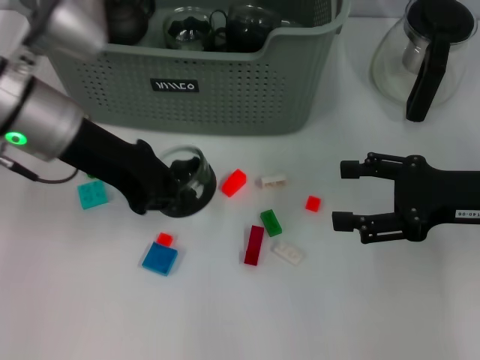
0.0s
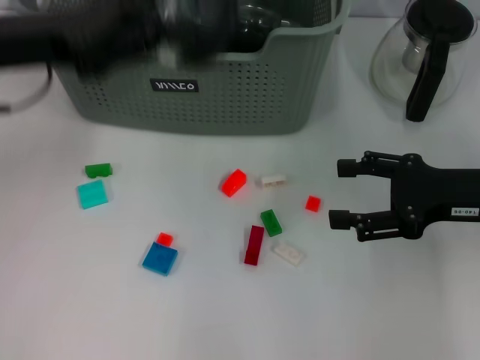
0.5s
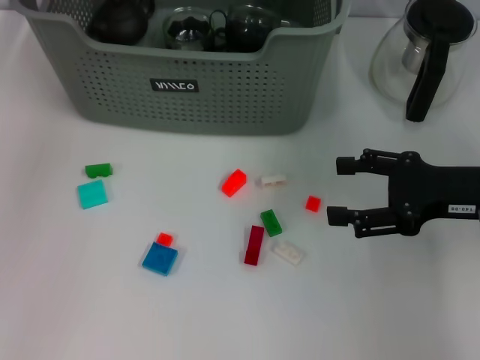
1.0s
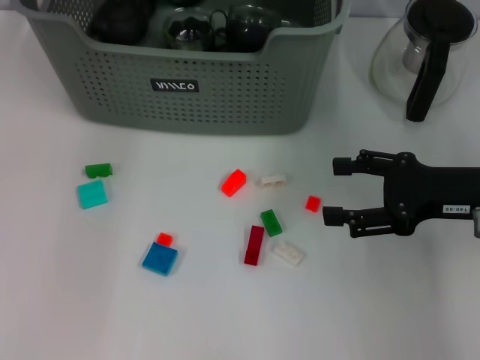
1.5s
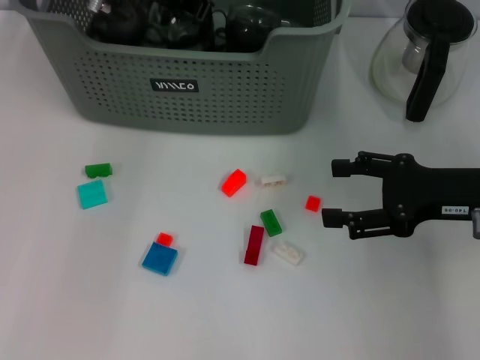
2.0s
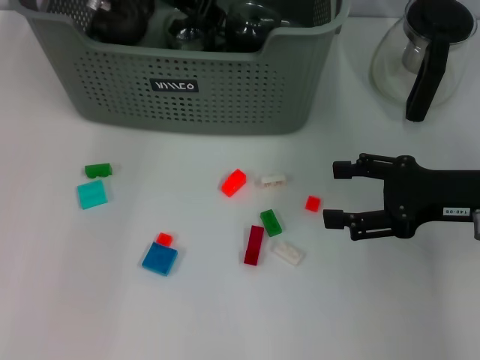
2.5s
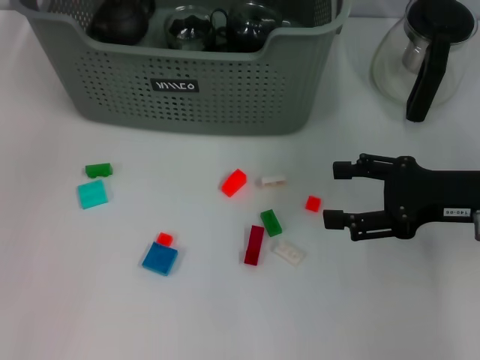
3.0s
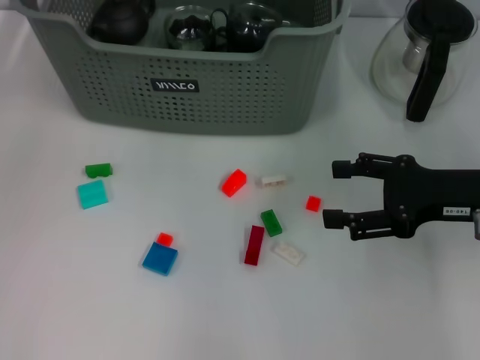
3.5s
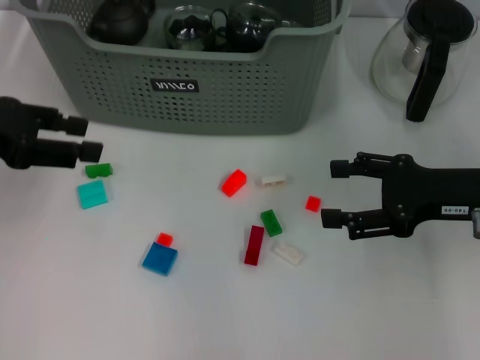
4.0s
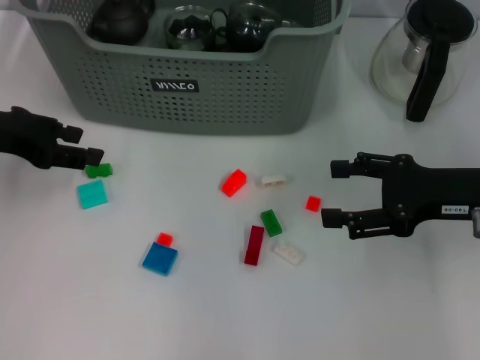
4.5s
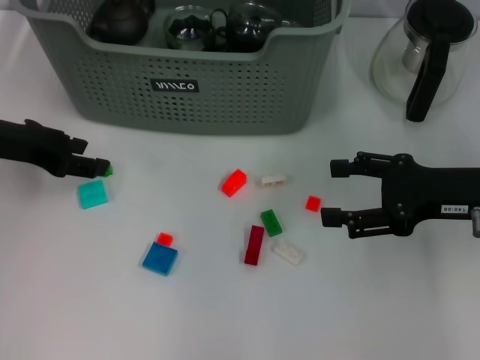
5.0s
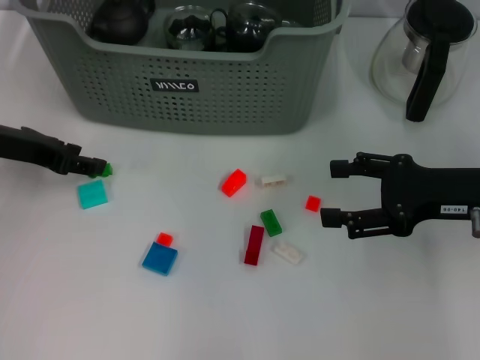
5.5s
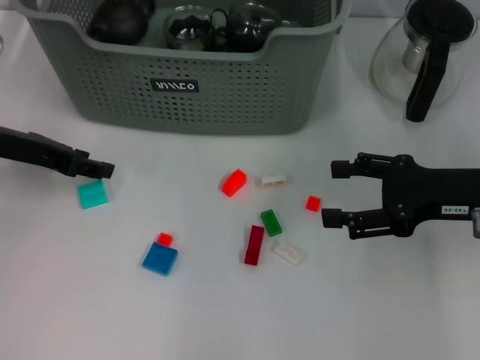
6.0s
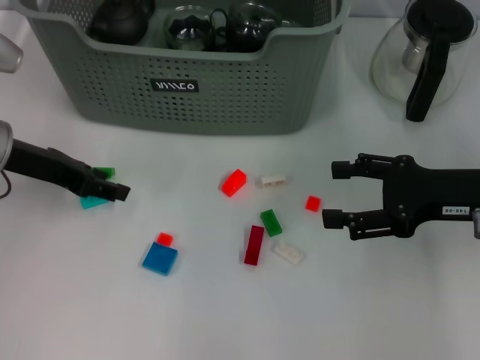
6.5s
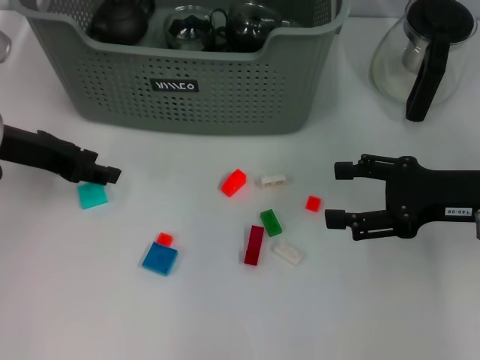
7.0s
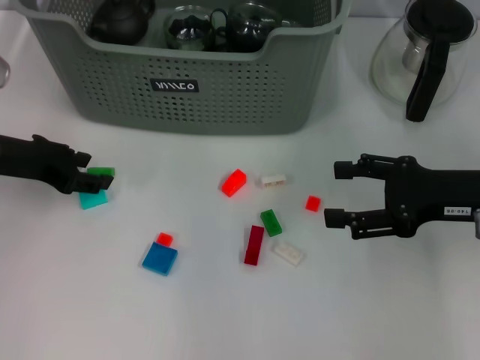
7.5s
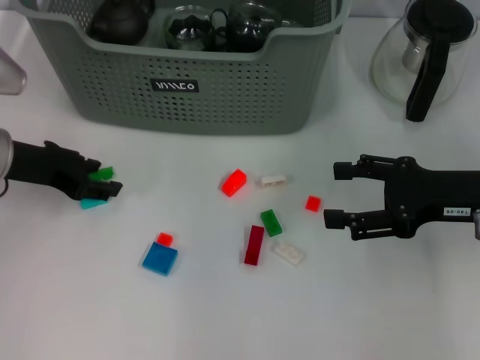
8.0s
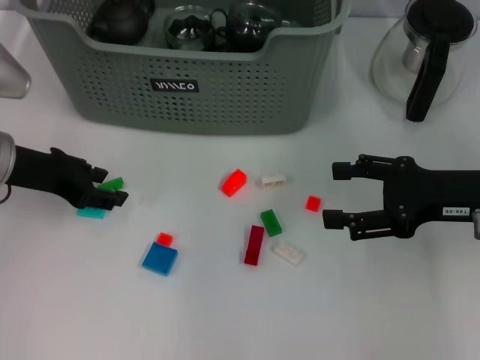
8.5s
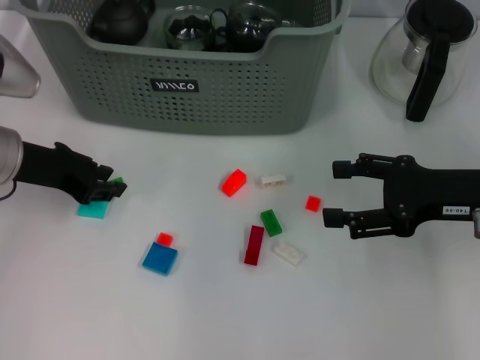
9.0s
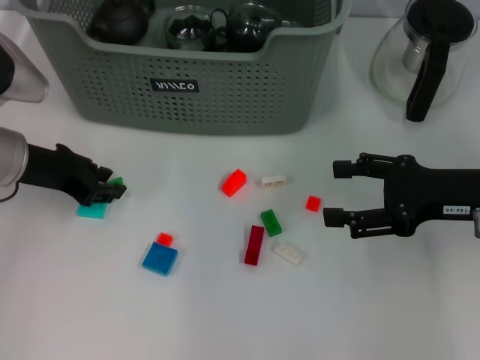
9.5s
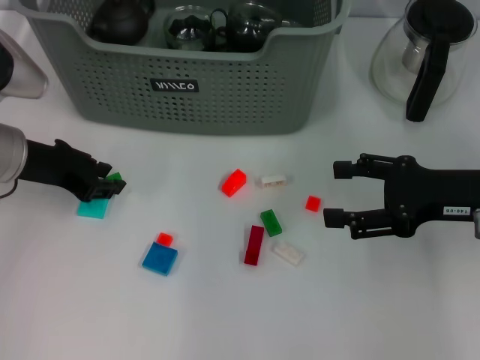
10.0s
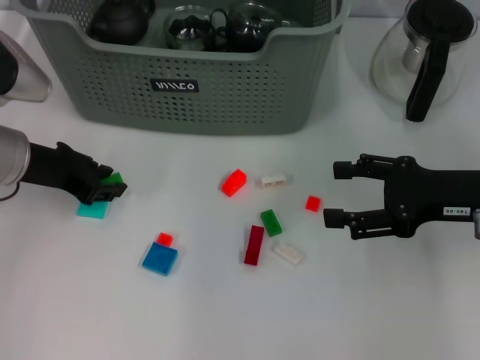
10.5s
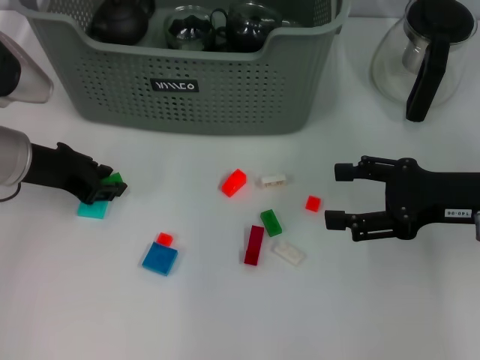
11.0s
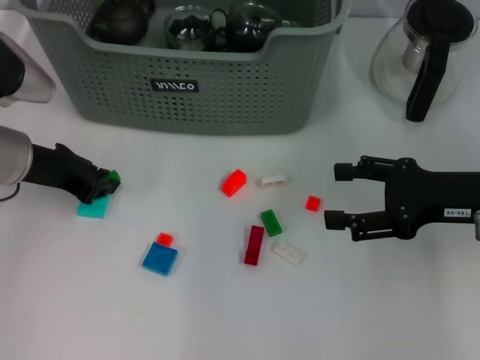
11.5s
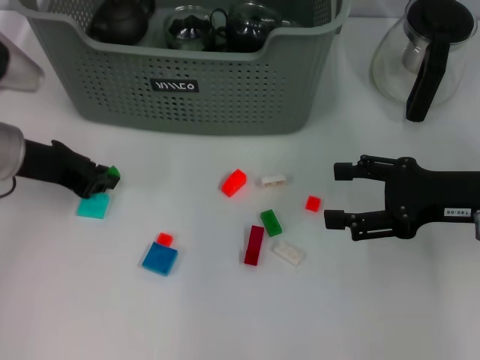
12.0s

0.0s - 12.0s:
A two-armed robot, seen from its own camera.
Task of the whole recording: pick up the teacup on the table and place it into the storage bin, pick up the block on the table and place it into the storage bin.
Step, 0.0s - 3.0s: Place the cup in the storage box with left gripper.
Step, 3.5s - 11.5s: Grasp the green block with left gripper.
0.0s - 2.0s: The left gripper is displaced forward and to the right by roughly 15 cm.
2.0s - 4.0s: The left gripper heads backward and to the left, covering about 25 cm, and opens up.
4.0s - 6.0s: The left gripper is displaced downward by some 5 cm.
6.0s - 10.0s: The grippers stay close to where they were, moving slightly.
10.0s - 12.0s: Neither gripper changes place.

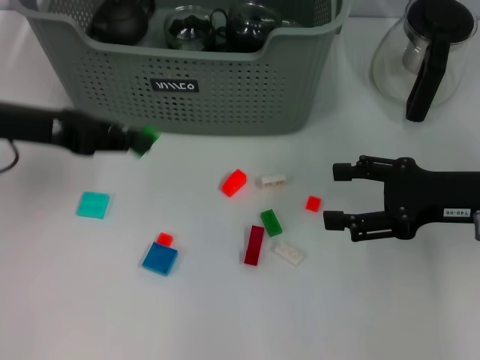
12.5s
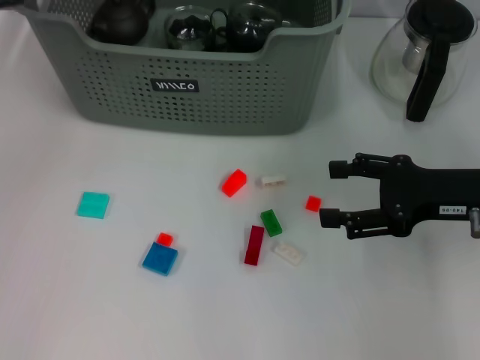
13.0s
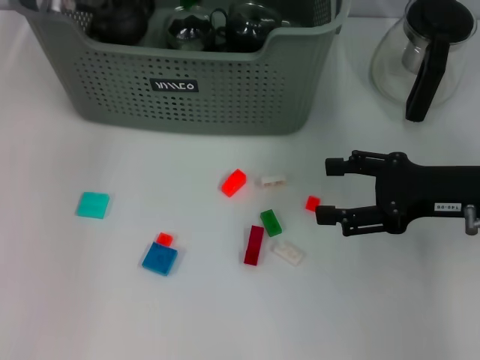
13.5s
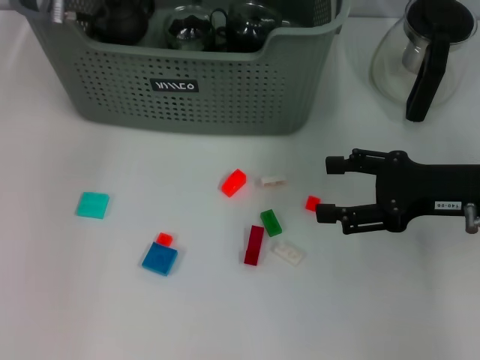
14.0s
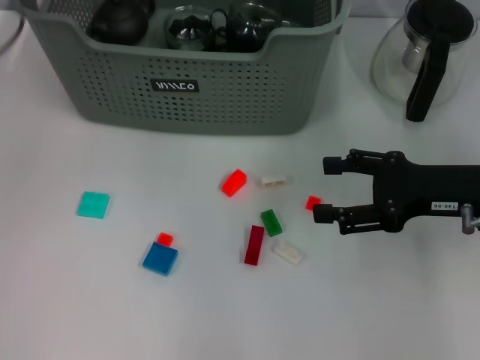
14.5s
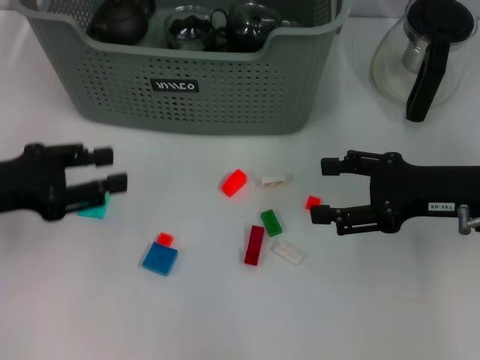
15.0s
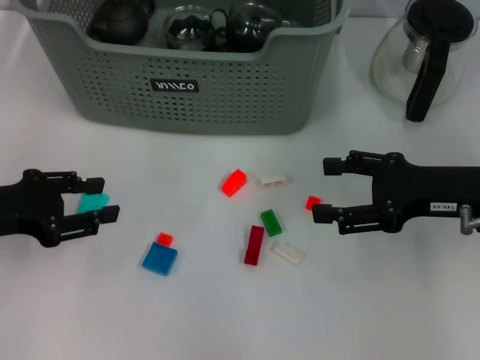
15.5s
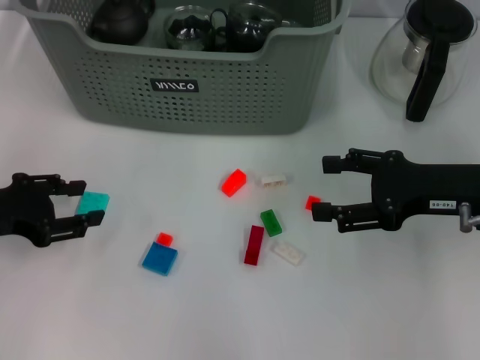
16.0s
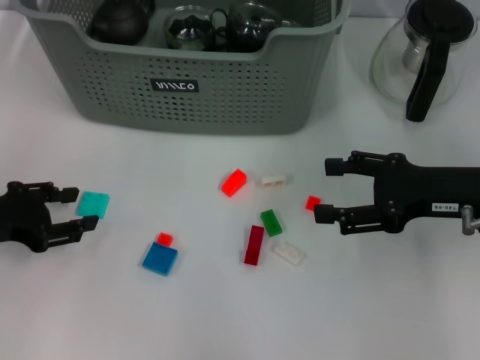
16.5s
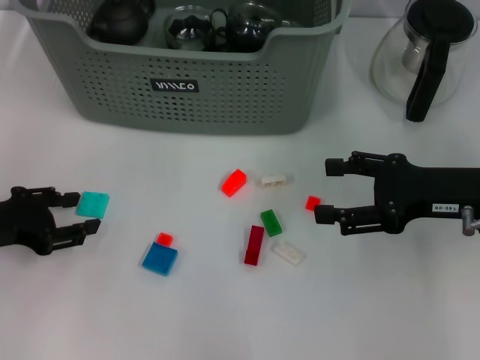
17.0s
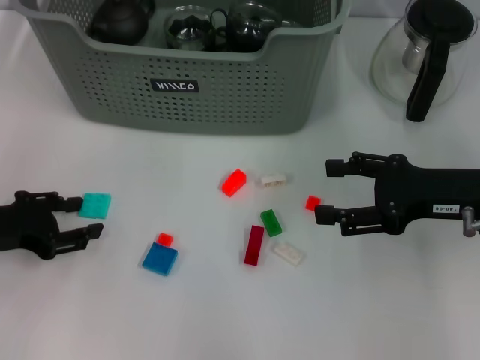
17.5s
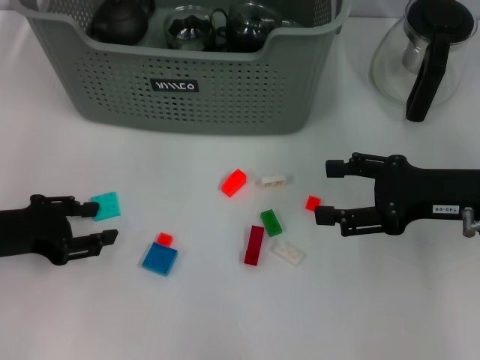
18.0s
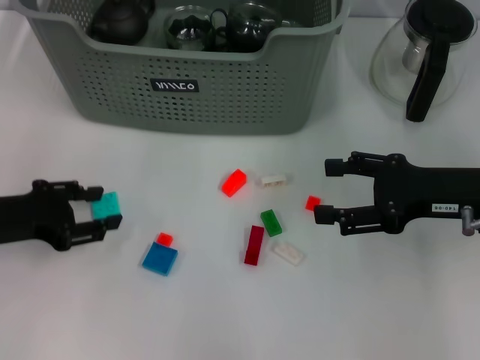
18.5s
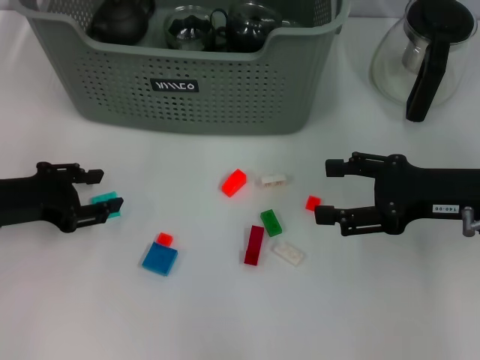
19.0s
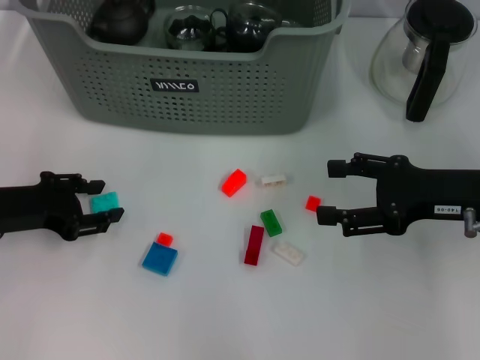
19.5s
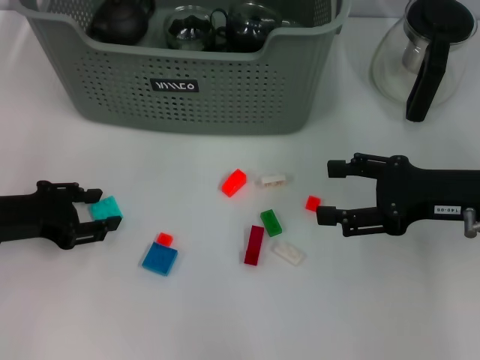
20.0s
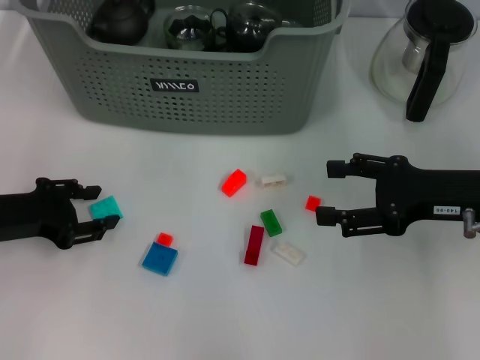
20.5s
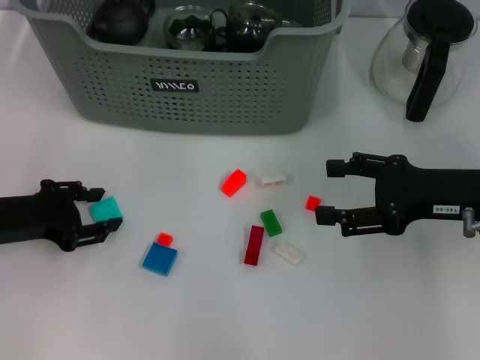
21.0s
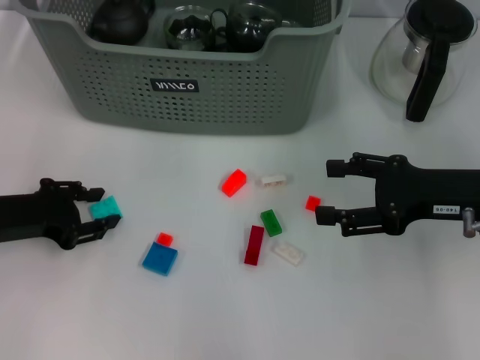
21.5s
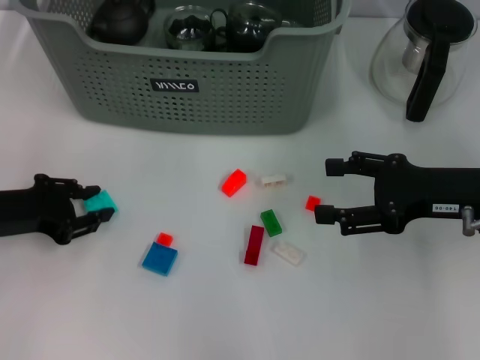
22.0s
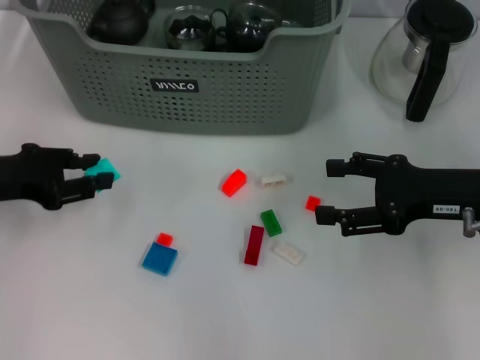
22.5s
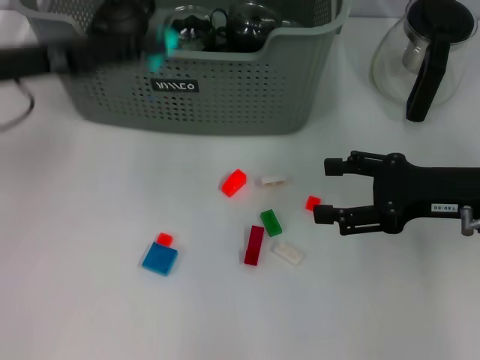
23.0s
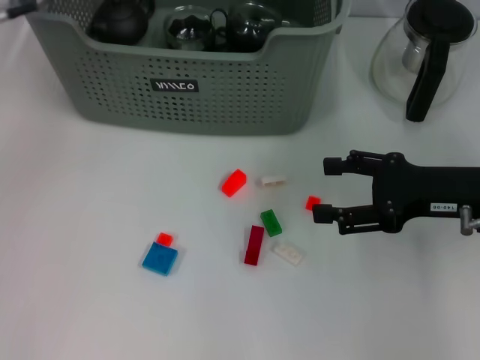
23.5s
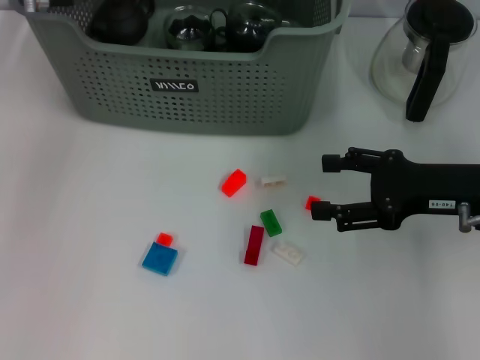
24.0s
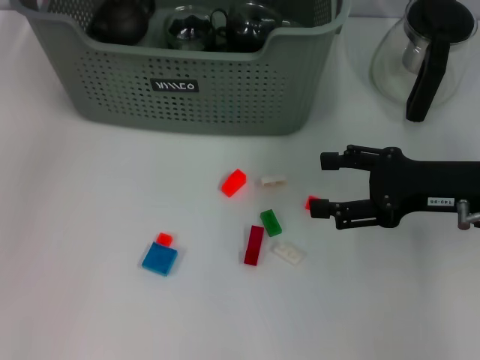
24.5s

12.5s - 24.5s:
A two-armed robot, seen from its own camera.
Task of the whole recording: pick up the teacup on the table and place it into the storage bin, pick up the block on the table and place it into the storage bin.
Step, 12.5s - 14.0s: Place the green block in the storage box with left gripper.
Step, 14.5s - 21.5s: Grasp the light blue block with left gripper.
12.5s - 14.5s: The left gripper moves about 15 cm forward and comes back, and opens its fingers.
14.5s - 16.5s: The left gripper is displaced downward and backward by roughly 15 cm.
16.5s - 22.5s: There are only small adjustments of the grippers.
22.5s - 24.5s: The left gripper shifts roughly 25 cm forward, upward and to the right.

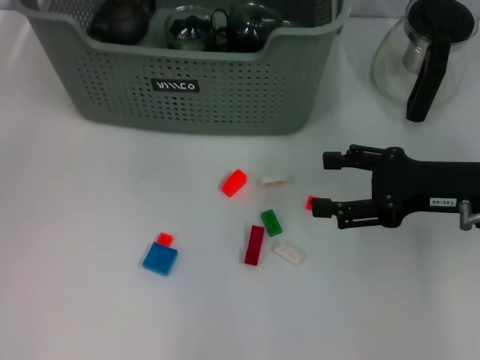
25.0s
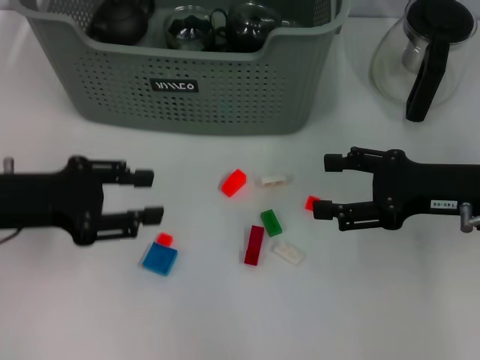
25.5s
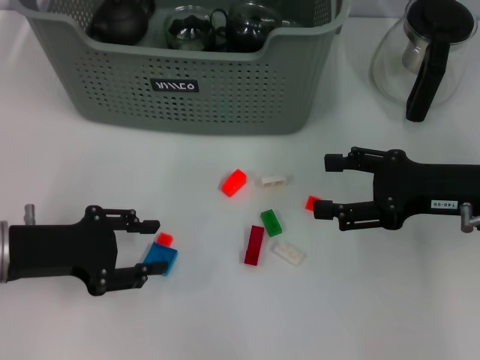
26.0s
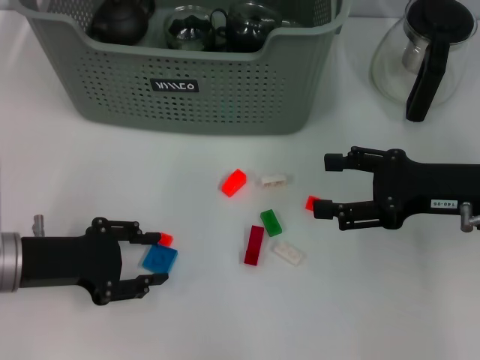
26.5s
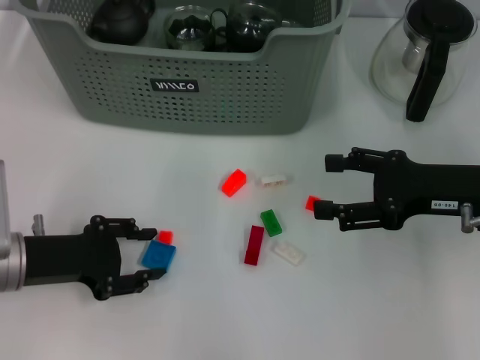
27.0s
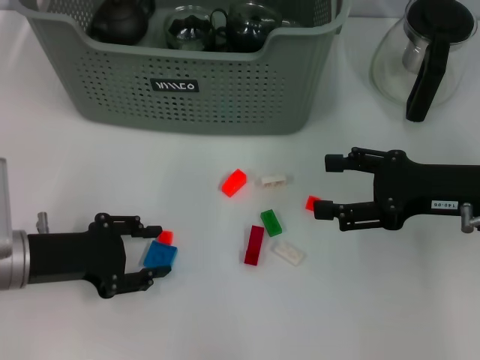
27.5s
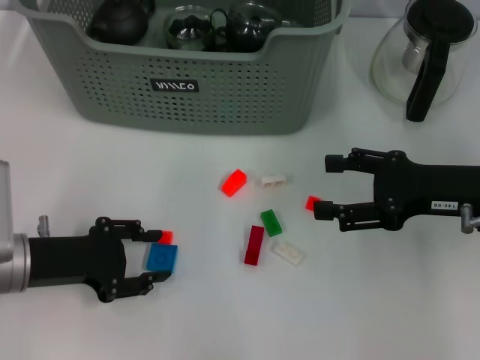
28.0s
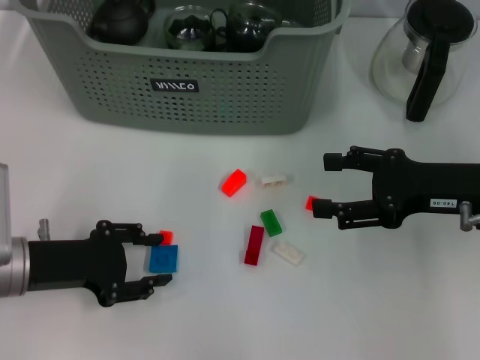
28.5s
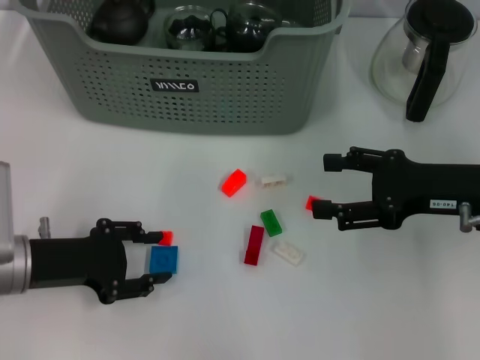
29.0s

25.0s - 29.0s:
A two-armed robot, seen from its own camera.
Task of the whole recording: pick up the teacup on the table and place it into the storage bin, pick up the block on the table and place it into the storage bin.
25.0s - 27.0s: The left gripper heads downward and backward, covering approximately 20 cm.
27.0s - 29.0s: Neither gripper changes place.
